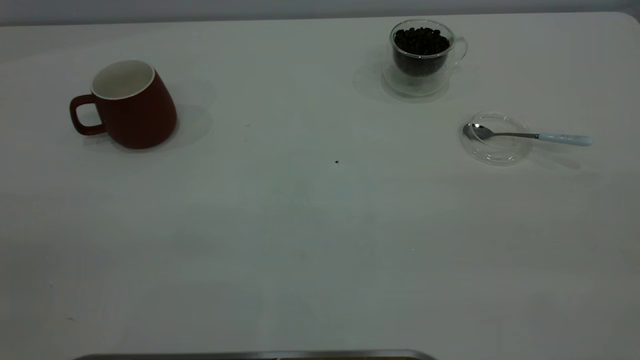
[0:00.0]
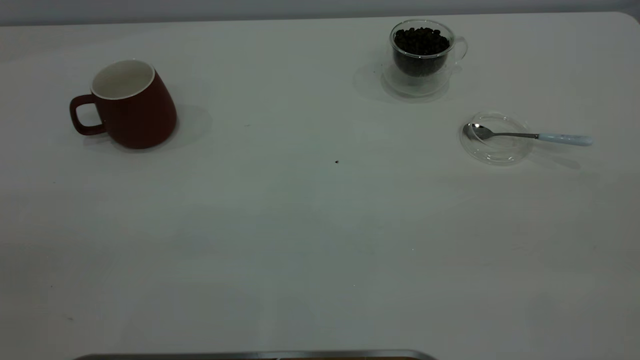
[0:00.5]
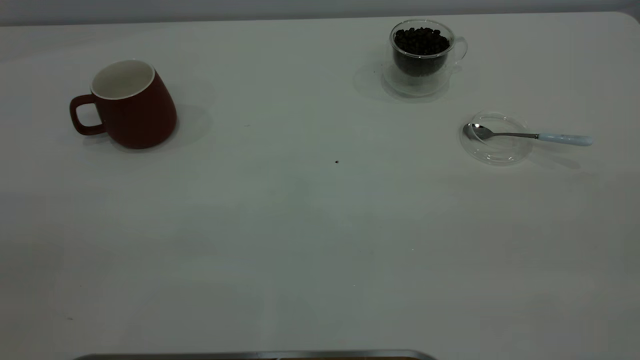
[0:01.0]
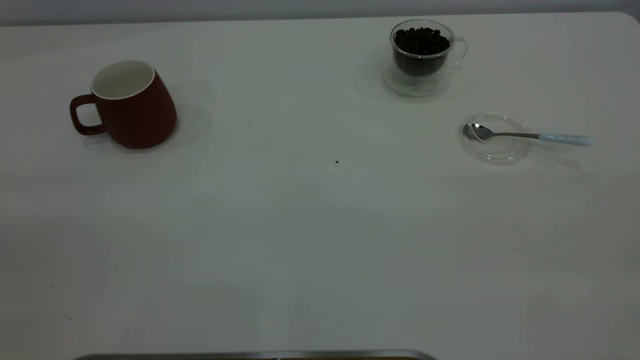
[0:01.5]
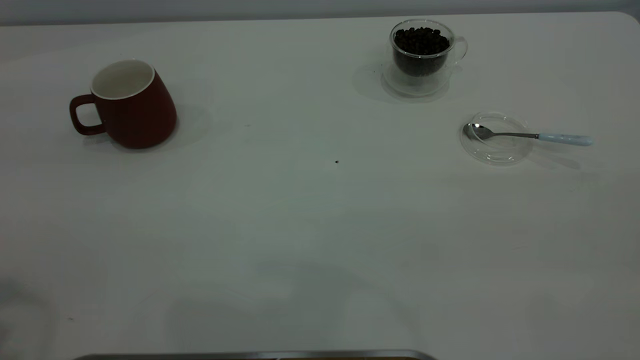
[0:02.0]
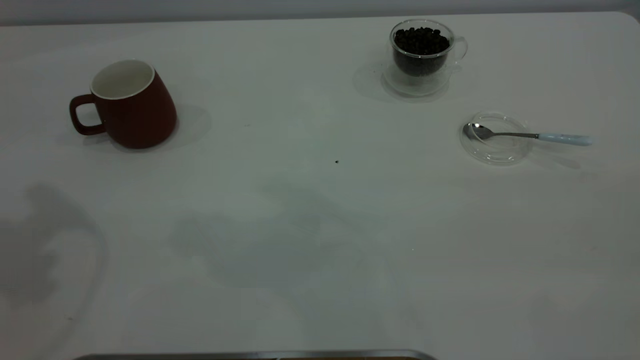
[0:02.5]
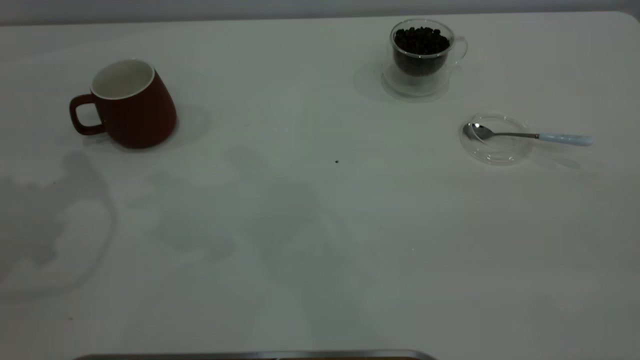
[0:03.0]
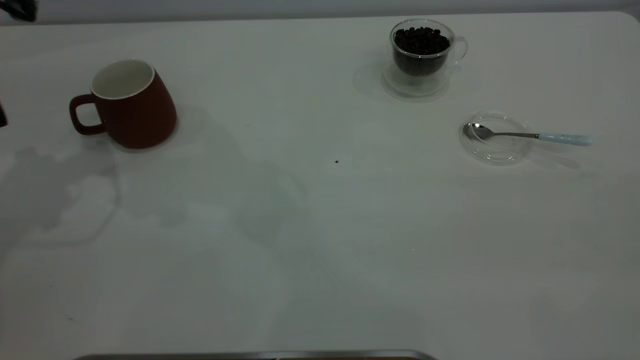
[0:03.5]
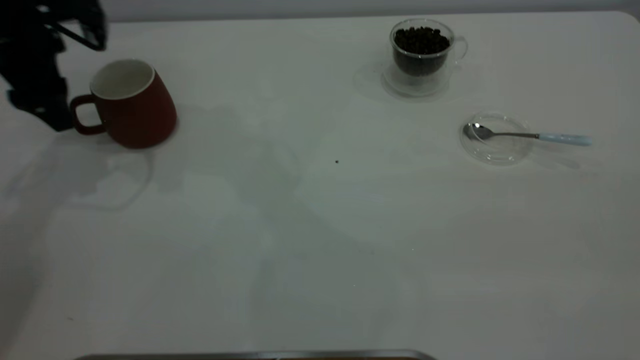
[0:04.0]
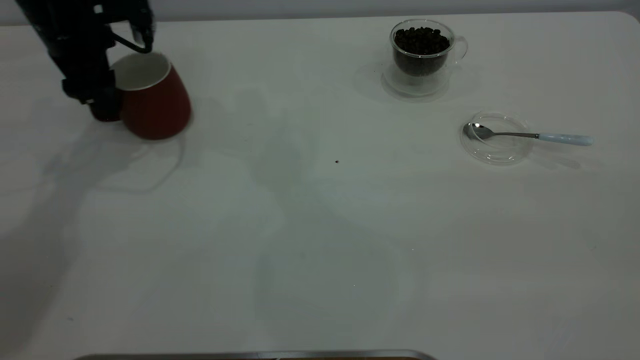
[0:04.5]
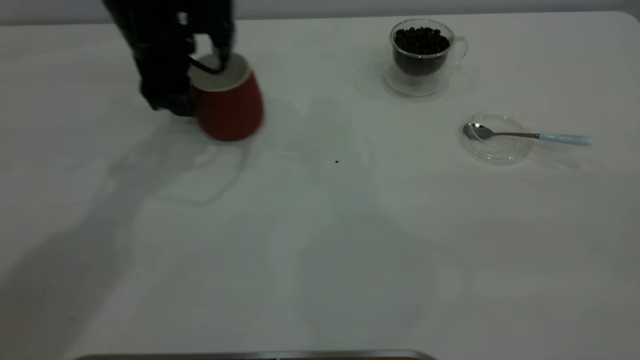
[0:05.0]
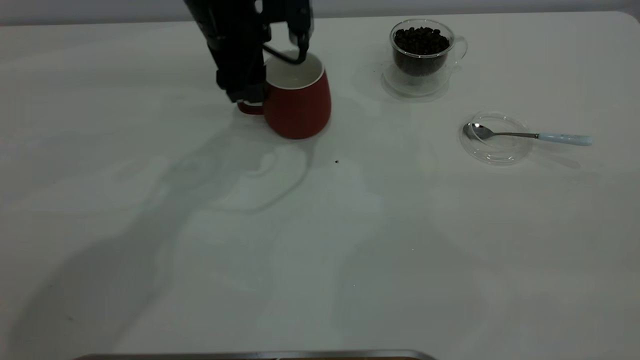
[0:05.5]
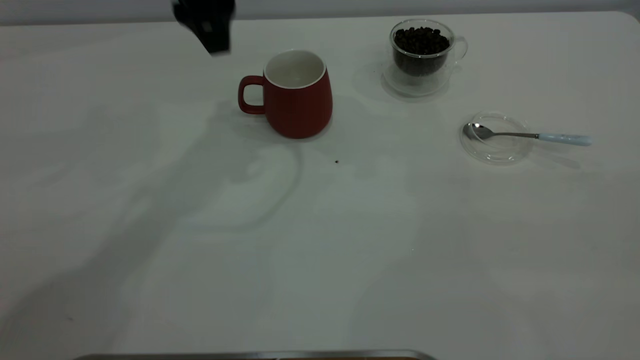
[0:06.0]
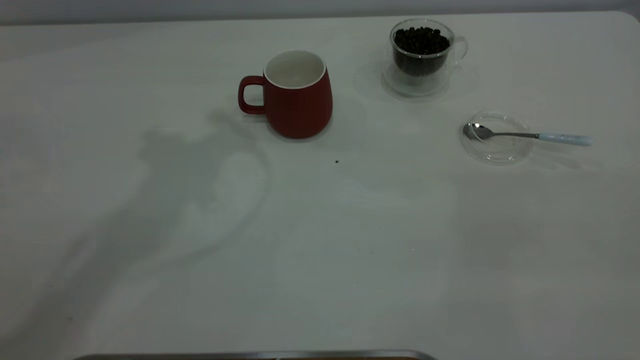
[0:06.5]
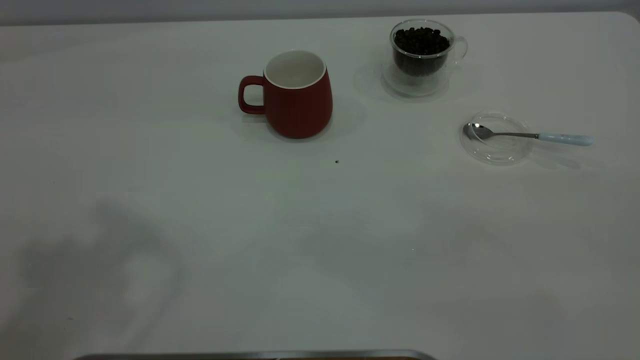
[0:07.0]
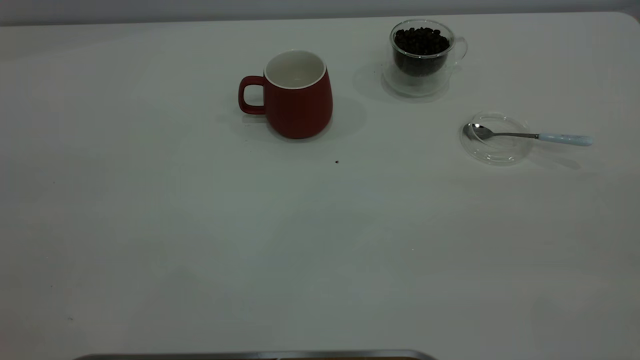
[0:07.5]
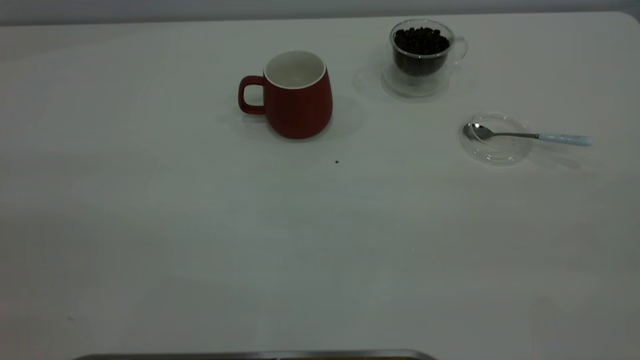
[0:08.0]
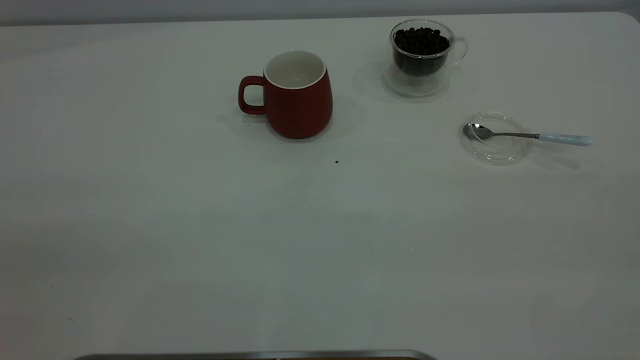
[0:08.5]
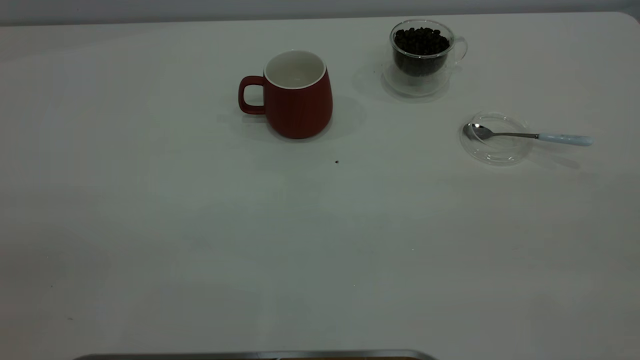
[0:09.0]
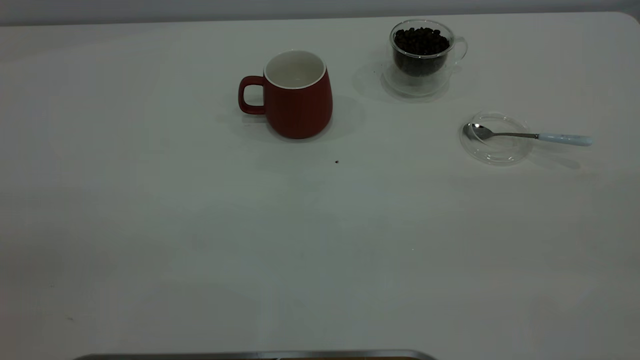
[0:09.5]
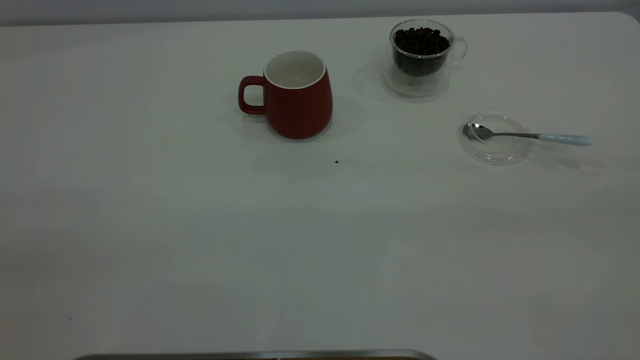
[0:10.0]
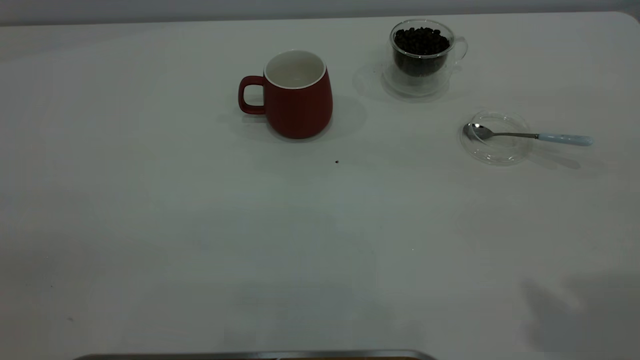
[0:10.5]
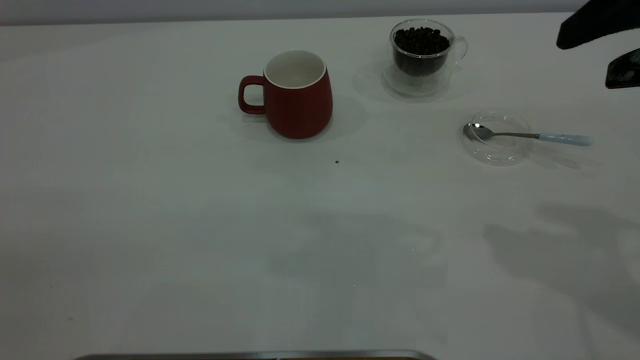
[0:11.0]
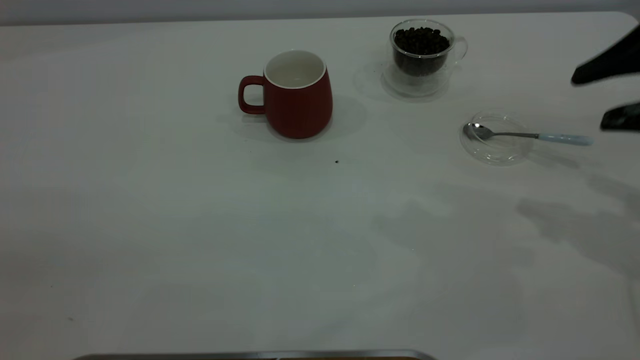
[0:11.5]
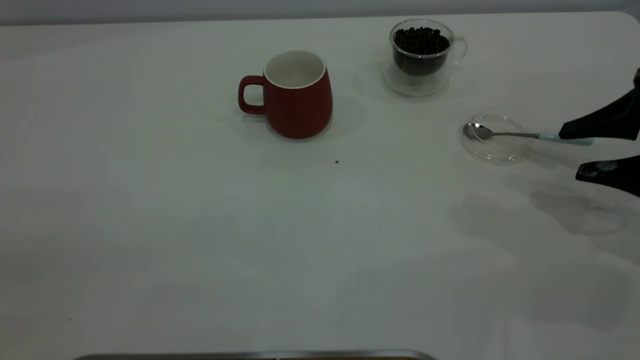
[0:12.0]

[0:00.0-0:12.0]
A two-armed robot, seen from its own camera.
Task of the whole recording: the left gripper place the red cup in the center of the table, the right gripper take the blue spoon from the cup lid and scoop out the coffee beans from the coffee cup and put them into the red cup, the right gripper put the spoon back into the cup lid.
Step, 0:00.0 to 0:05.5: Move the cup to the center of view.
0:02.0 to 0:04.0: The left gripper moves forward and downward, approximately 35 cm.
0:04.0 to 0:06.0: The left gripper moves to the right and upward, some 20 cm.
0:06.0 to 0:08.0: The left gripper travels backward and to the left by approximately 40 cm.
0:10.0 to 0:12.0: The right gripper travels downward and forward by about 35 cm.

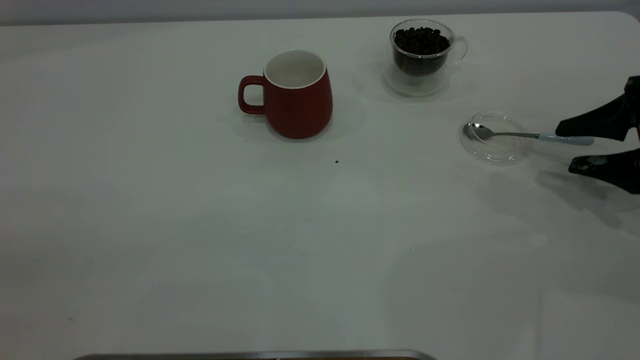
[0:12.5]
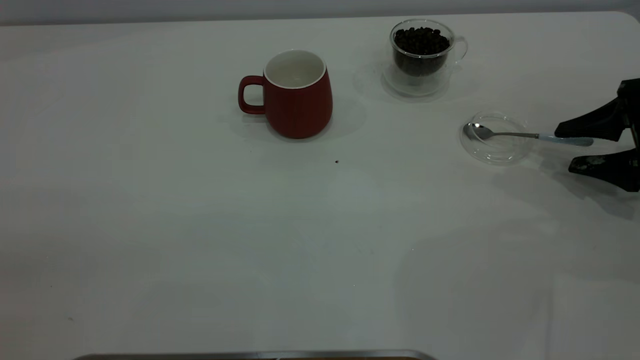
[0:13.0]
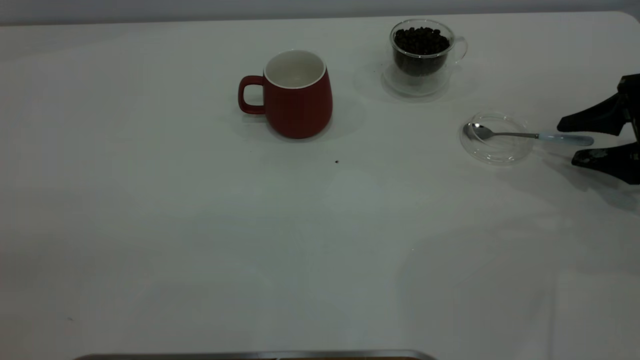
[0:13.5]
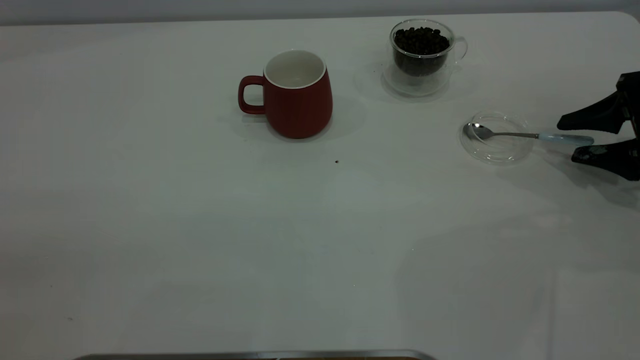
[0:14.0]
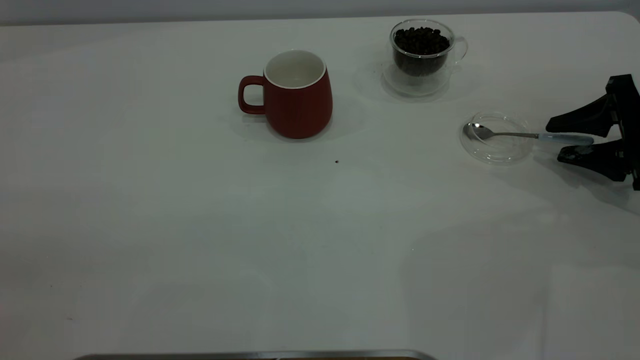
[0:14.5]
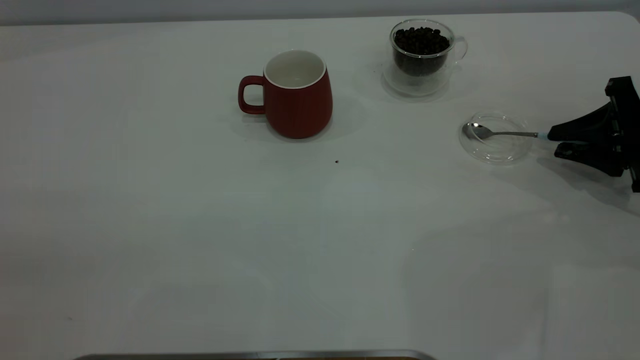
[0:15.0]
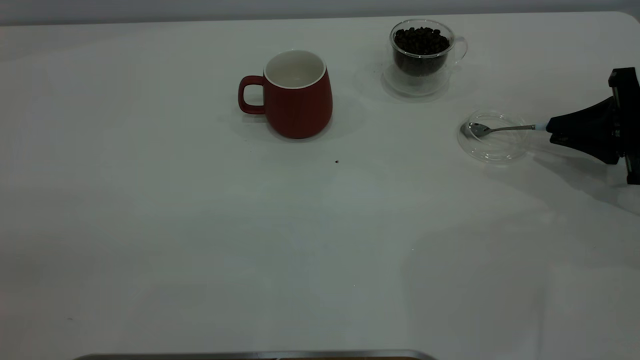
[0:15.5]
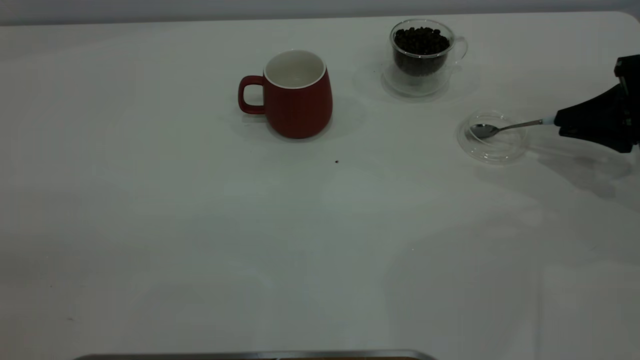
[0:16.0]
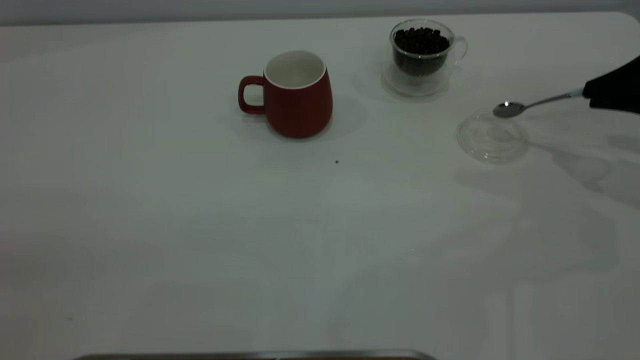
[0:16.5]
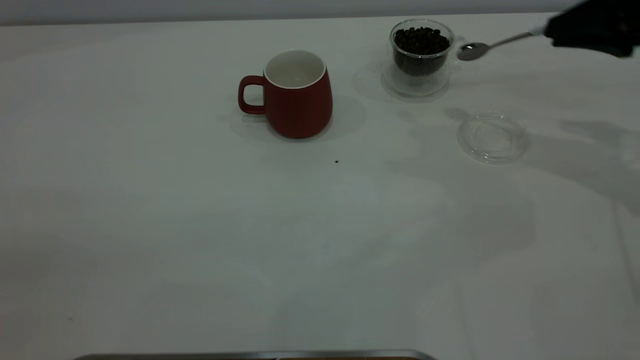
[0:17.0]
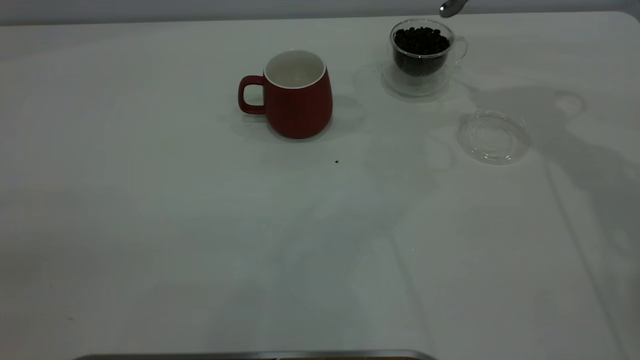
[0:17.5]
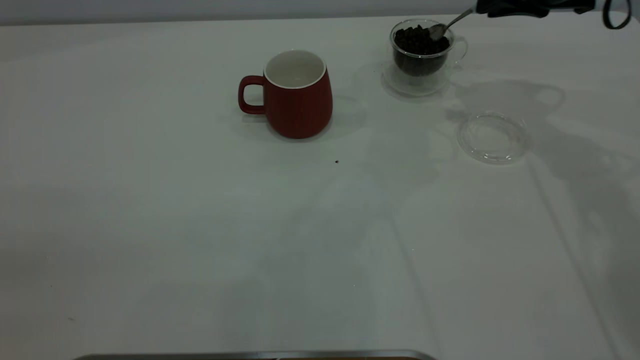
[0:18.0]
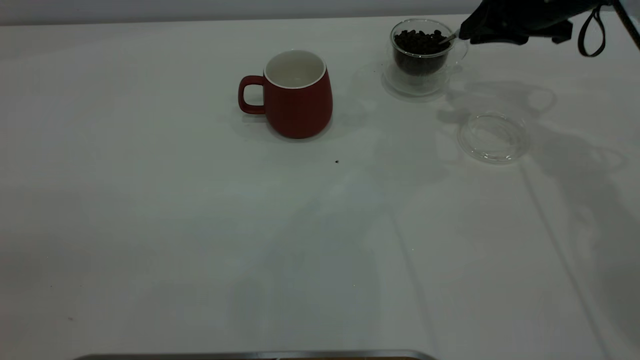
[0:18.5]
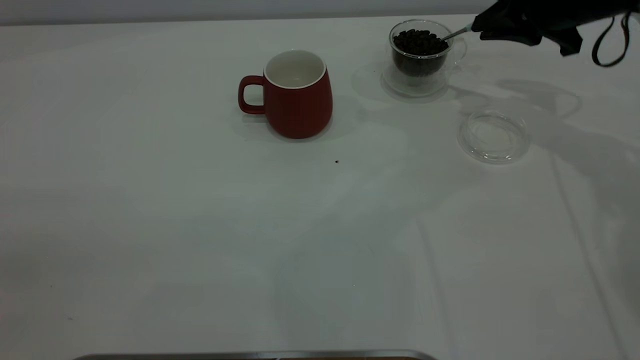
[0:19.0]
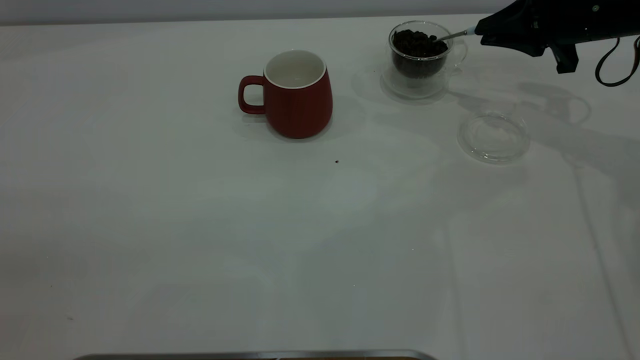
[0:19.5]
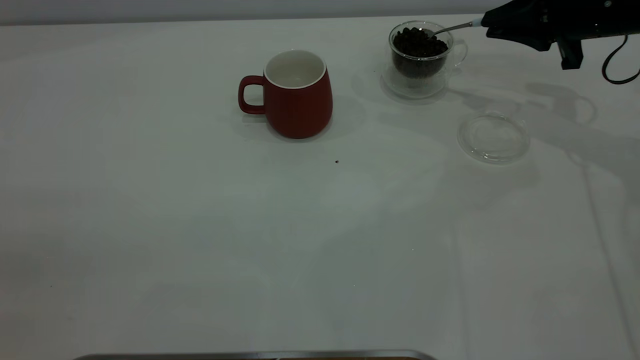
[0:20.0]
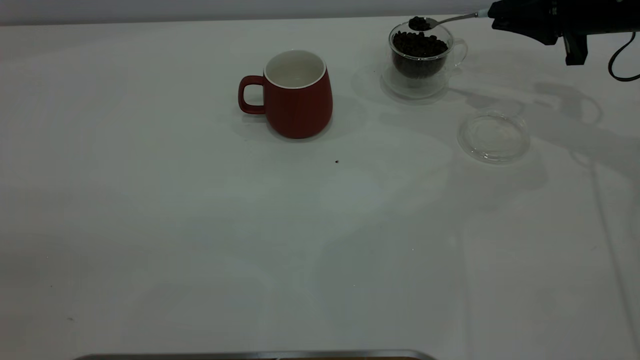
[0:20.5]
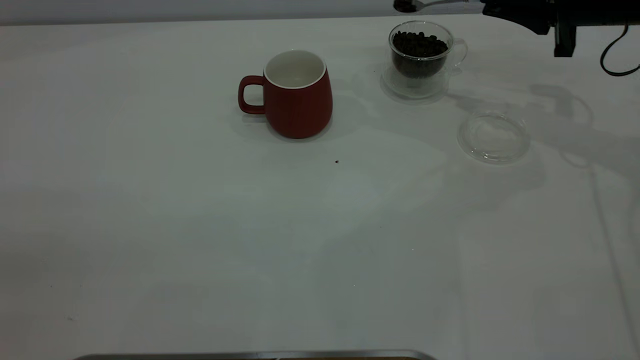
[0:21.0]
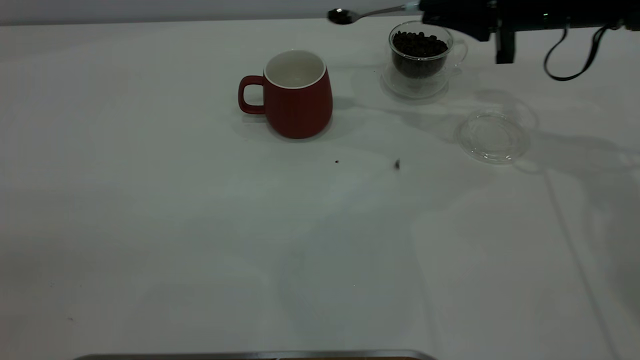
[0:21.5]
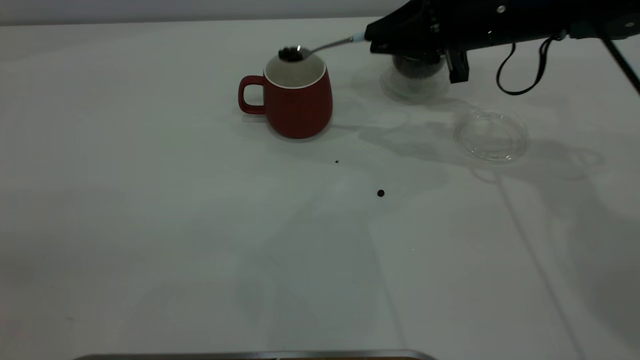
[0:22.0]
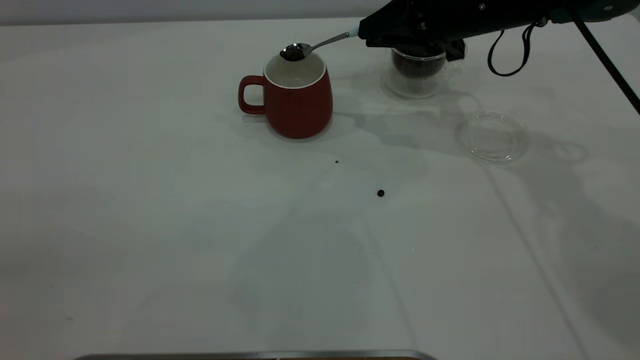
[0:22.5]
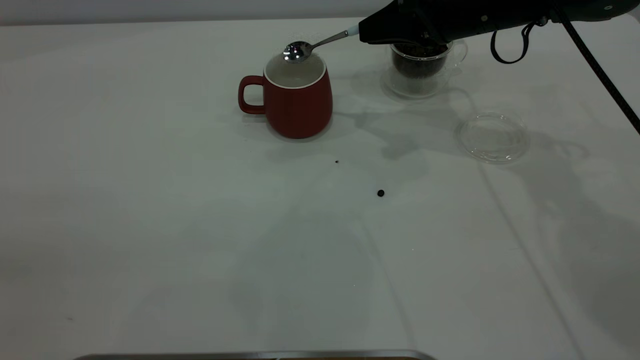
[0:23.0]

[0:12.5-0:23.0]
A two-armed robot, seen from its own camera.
Task of the whole recording: the left gripper place the red cup in the center of the table, the right gripper take the blue spoon from the cup lid and scoop out the coffee beans from the coffee cup and put them into the red cup, the right gripper put the spoon back into the cup lid.
Step, 0:12.5 to 0:16.0: Pick up the spoon.
0:12.5 to 0:14.5: There are only small adjustments of the grippers.
0:14.5 to 0:16.5: The right gripper moves upward, some 10 cm, and closes.
0:16.5 to 0:19.0: The right gripper is displaced forward and to the left by approximately 15 cm.
0:21.0 to 0:23.0: The right gripper is displaced to the left by approximately 15 cm.
